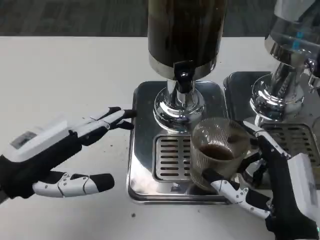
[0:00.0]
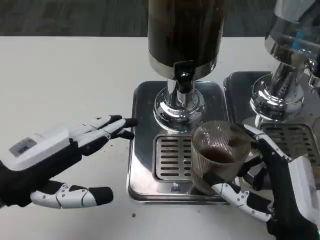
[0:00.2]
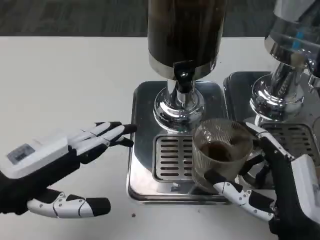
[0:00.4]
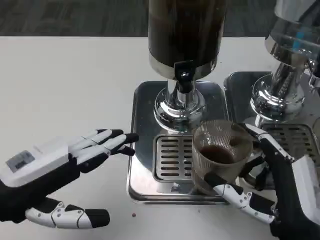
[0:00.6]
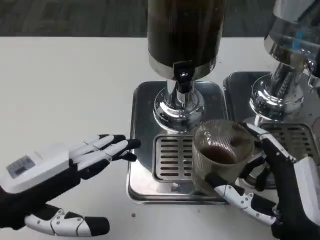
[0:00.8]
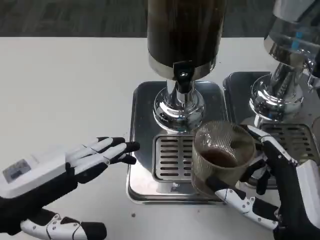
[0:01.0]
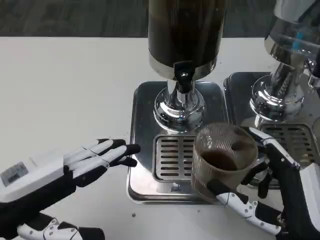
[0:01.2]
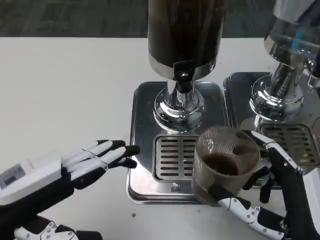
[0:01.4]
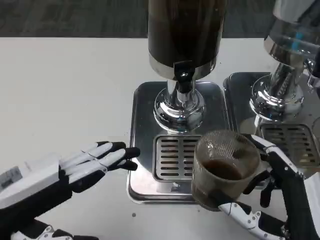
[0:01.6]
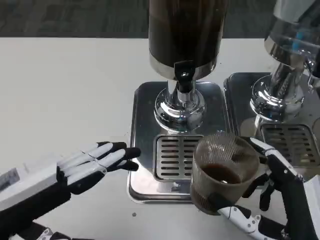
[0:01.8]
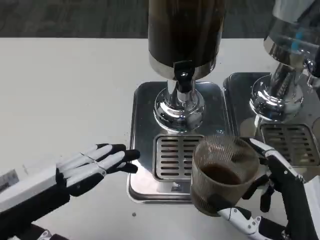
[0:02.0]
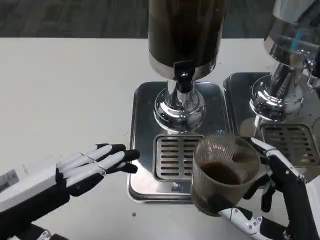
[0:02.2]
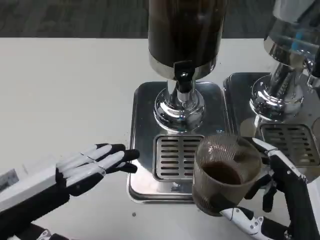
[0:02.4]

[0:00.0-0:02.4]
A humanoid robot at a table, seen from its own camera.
Task of the whole recording: Grasp the cup under the faucet to collect the drink, then remove the cup.
0:01.2 to 0:02.4: There are only small adjustments of the hands.
